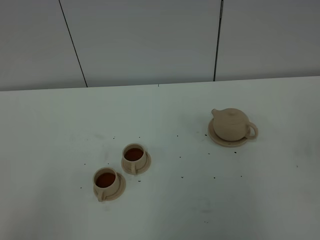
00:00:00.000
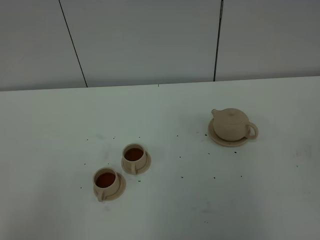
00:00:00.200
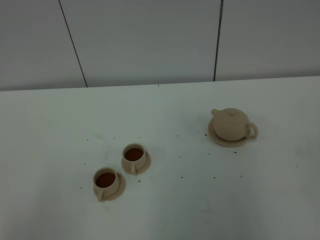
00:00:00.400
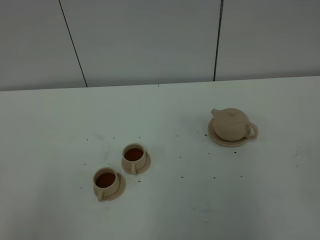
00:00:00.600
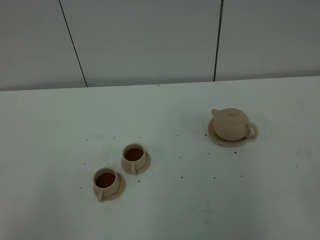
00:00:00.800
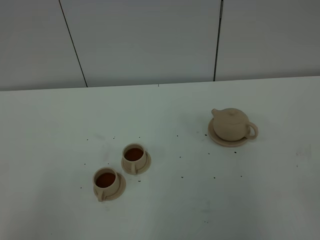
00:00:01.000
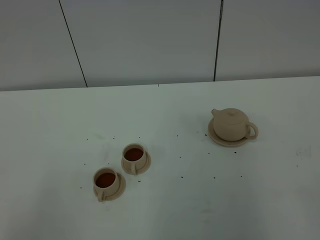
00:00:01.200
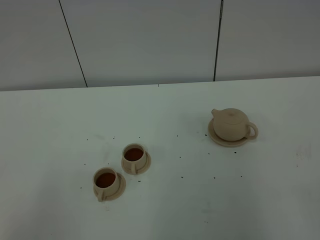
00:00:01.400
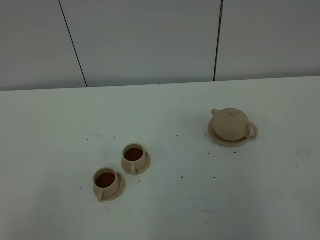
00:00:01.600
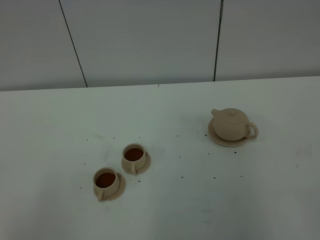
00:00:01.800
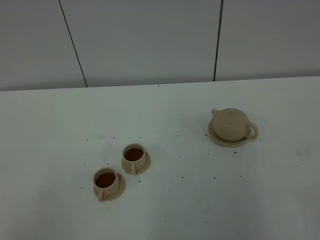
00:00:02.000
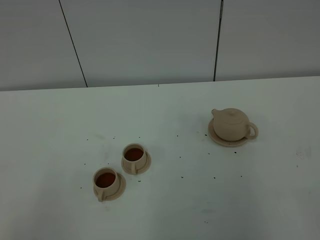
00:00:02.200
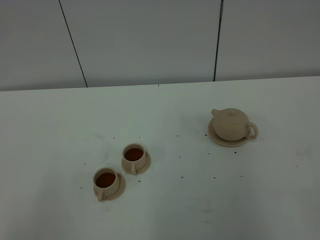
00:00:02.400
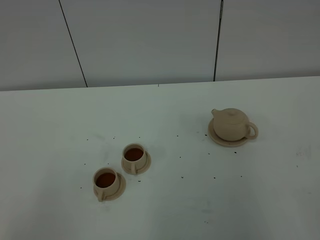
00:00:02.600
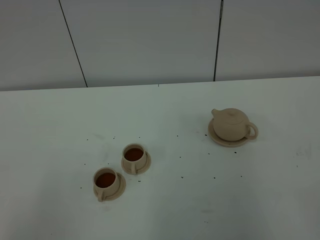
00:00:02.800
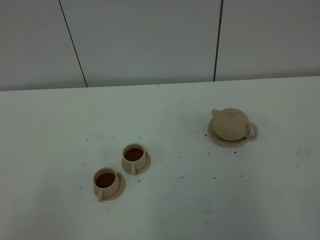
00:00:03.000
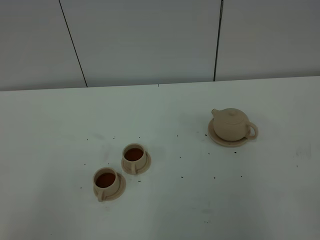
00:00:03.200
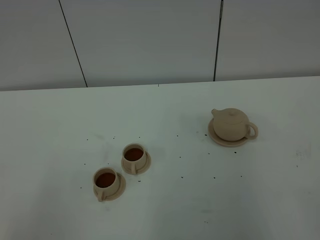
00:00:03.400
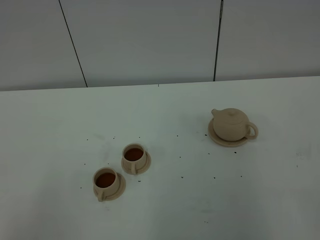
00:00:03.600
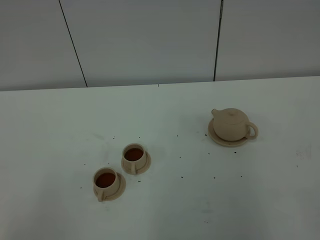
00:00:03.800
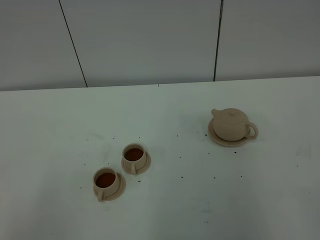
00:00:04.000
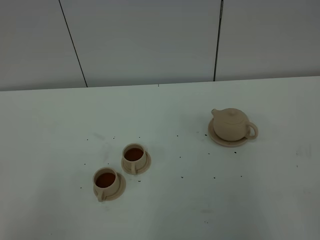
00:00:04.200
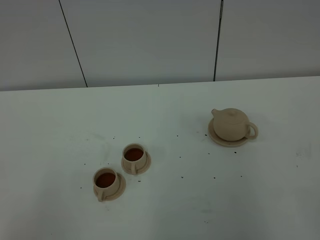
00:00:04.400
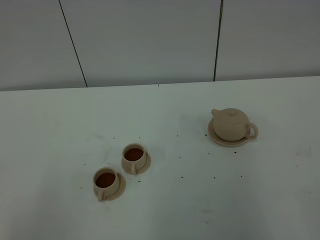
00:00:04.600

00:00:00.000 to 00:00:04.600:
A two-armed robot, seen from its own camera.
Task of the whole recording: grasp the brown teapot and pour the tea into the two brown teacups one by one, put the brown teapot back in its original place.
00:00:01.600 to 00:00:04.600: Neither gripper changes place.

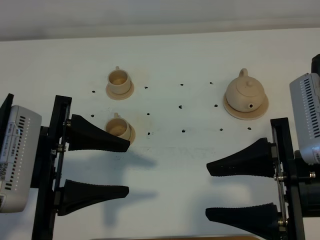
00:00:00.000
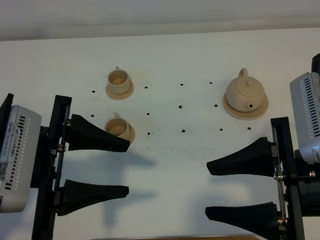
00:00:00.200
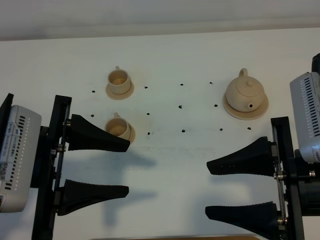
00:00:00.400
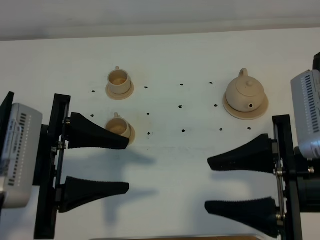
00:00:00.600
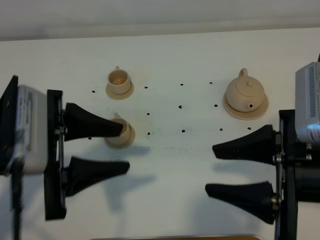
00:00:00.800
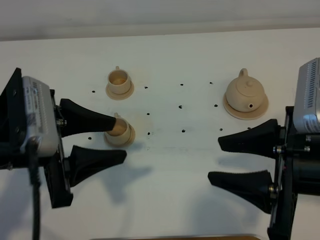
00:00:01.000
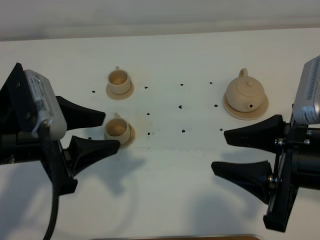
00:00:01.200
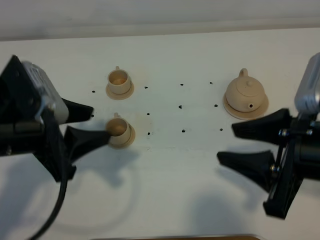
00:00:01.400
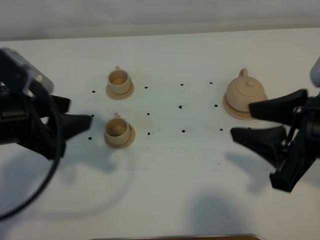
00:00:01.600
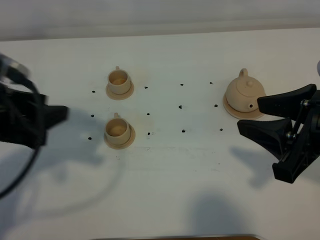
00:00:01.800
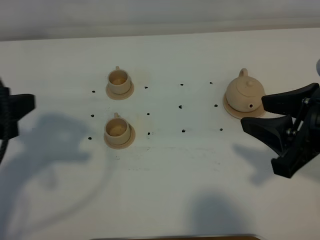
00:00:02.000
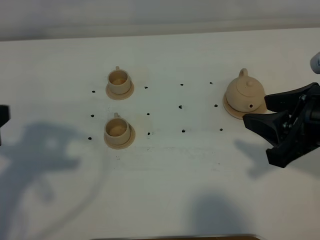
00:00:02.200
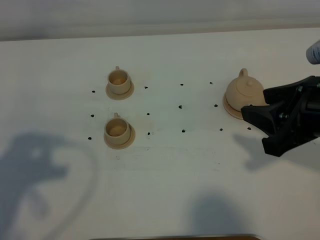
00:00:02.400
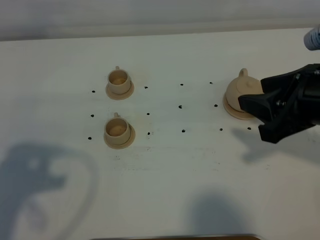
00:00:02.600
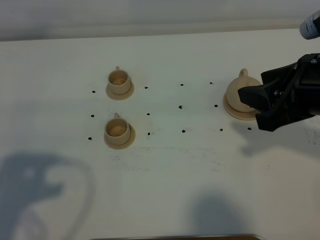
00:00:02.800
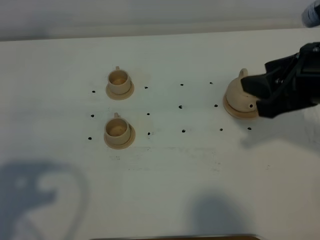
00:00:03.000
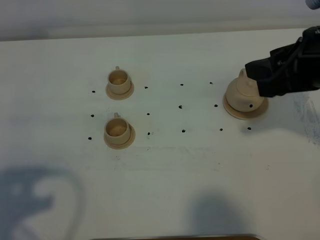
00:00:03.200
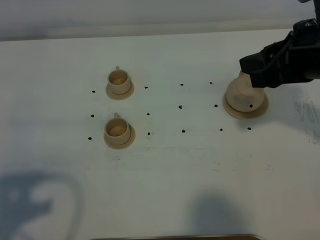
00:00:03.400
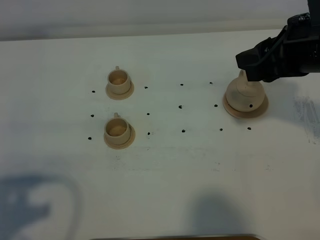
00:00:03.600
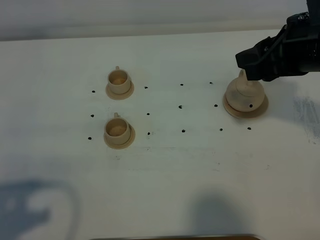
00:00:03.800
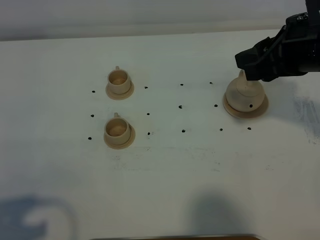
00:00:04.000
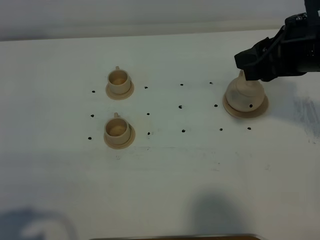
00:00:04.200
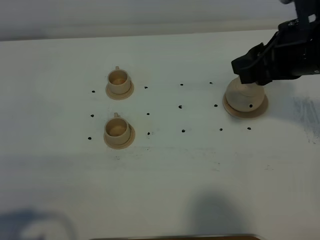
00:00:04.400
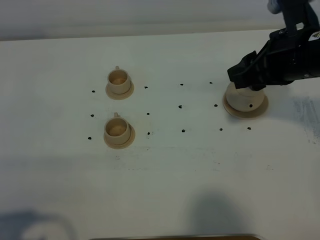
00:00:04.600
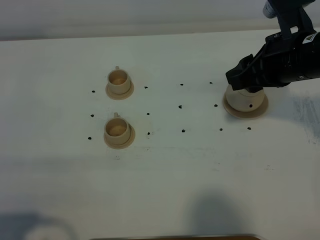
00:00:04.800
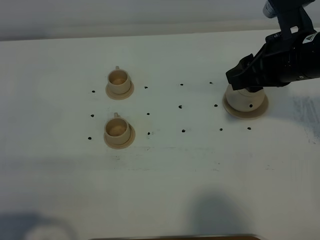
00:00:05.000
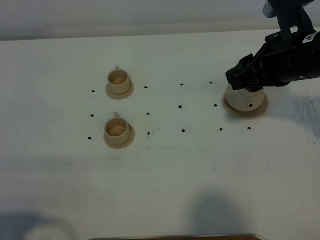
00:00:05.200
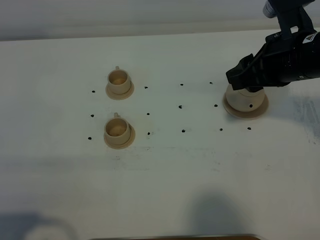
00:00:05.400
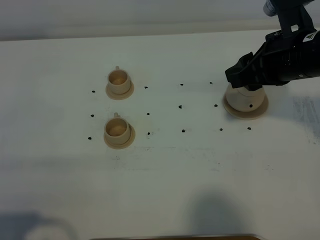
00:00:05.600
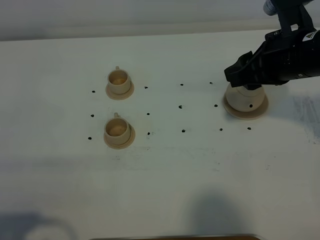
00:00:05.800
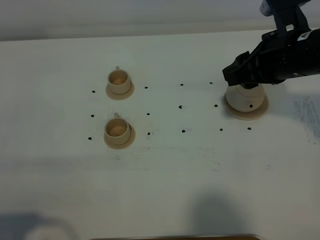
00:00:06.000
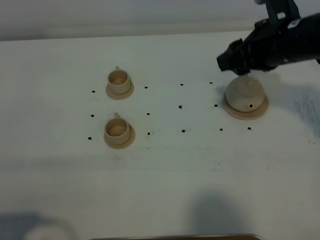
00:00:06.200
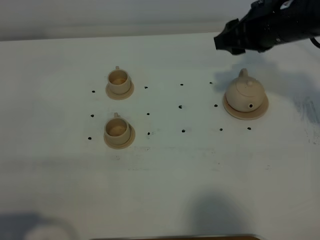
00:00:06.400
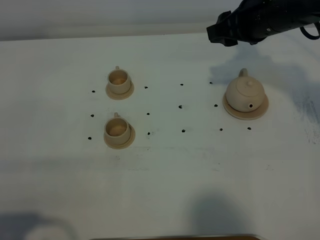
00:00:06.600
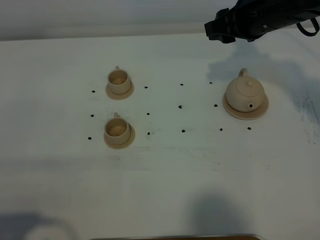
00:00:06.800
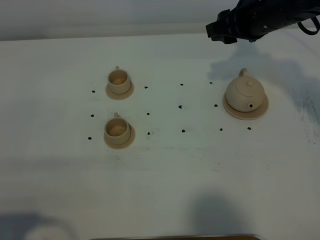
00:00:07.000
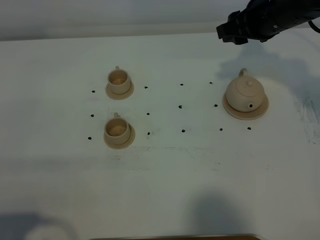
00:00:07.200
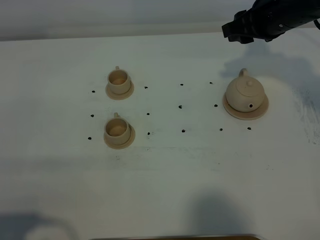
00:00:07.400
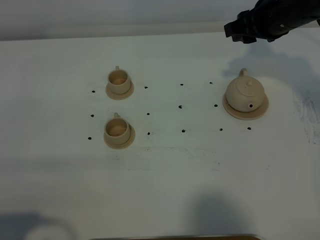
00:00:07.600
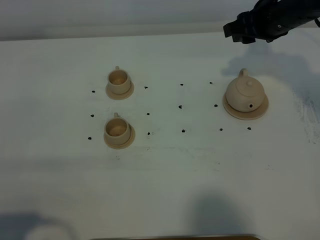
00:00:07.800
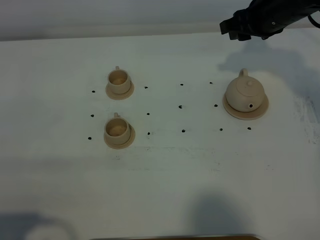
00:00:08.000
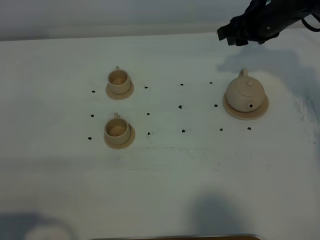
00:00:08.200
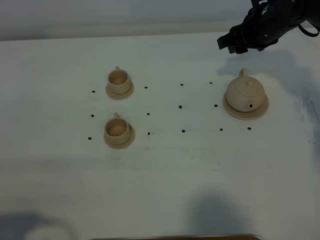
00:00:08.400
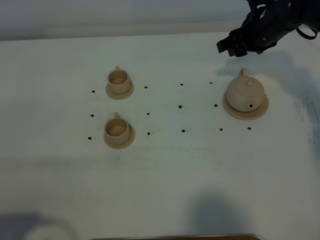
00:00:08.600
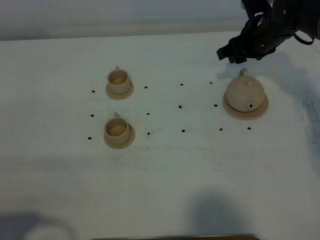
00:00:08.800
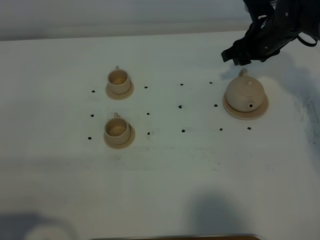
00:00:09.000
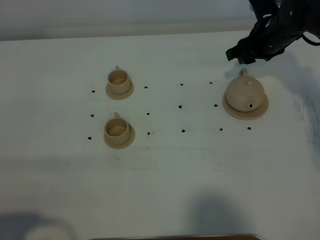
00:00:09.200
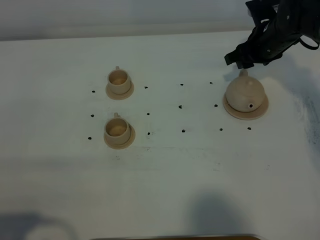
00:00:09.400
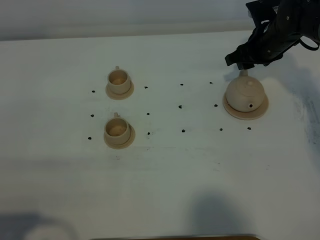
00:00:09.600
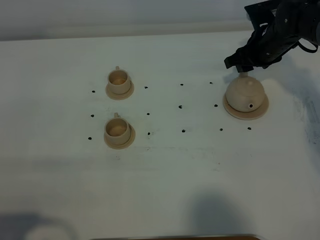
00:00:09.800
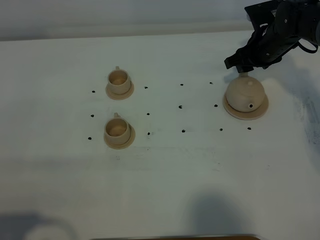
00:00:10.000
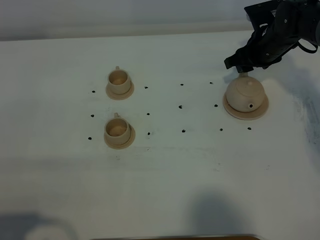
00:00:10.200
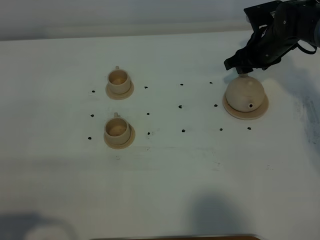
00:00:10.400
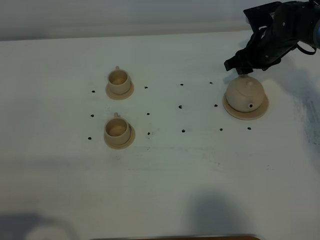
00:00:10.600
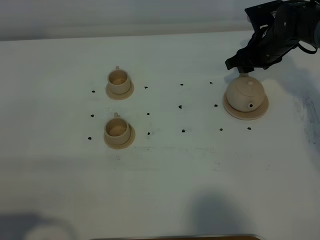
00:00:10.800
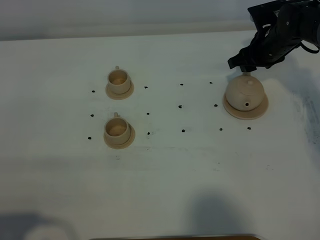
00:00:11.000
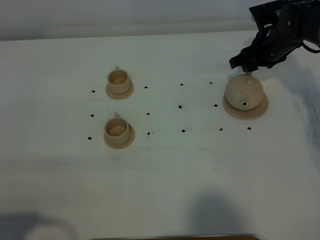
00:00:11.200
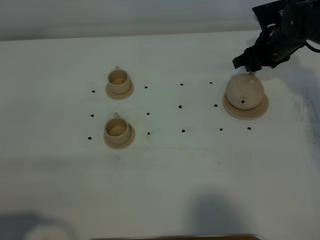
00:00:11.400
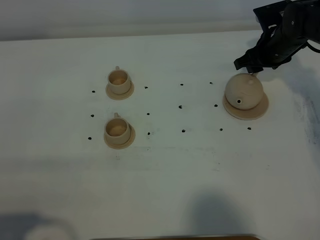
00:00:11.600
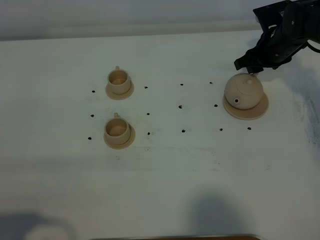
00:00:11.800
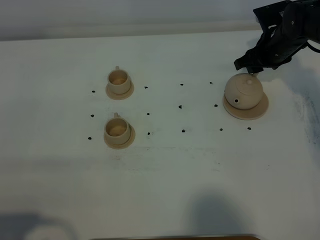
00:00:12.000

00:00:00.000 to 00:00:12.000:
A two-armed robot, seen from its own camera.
Task of the whole recording: grasp the brown teapot and pour the tea into the two brown teacups one by one, put the brown teapot back in its original place.
00:00:00.000 to 00:00:01.600: The right gripper moves approximately 5 cm, while the left gripper is displaced to the left by approximately 5 cm.
00:00:01.600 to 00:00:03.000: The left gripper heads backward and to the left, covering about 15 cm; the right gripper shifts roughly 5 cm forward.
00:00:03.000 to 00:00:04.400: The right gripper is displaced forward by about 5 cm. The left gripper travels backward and downward by some 10 cm, and closes its fingers.
00:00:04.400 to 00:00:06.000: The grippers stay close to where they were, moving slightly.
00:00:06.000 to 00:00:07.600: The right gripper travels forward by some 10 cm.
00:00:07.600 to 00:00:09.000: The right gripper moves downward and forward, some 10 cm.
00:00:09.000 to 00:00:12.000: The grippers stay close to where they were, moving slightly.

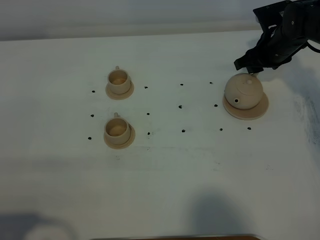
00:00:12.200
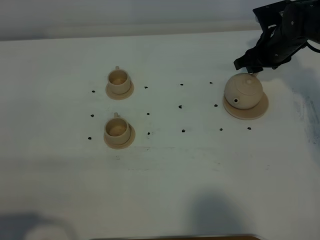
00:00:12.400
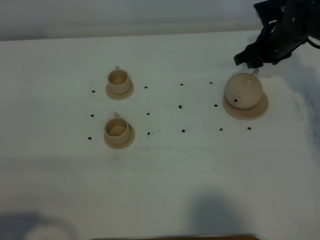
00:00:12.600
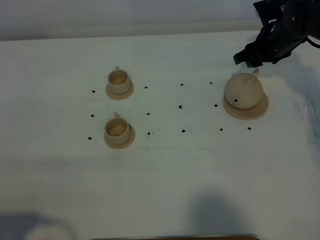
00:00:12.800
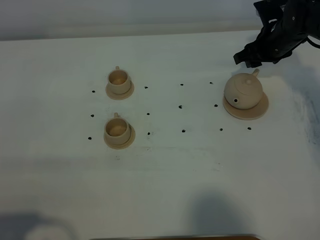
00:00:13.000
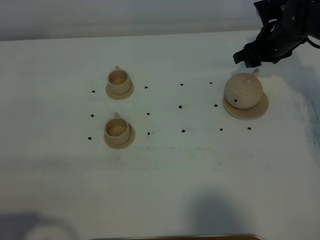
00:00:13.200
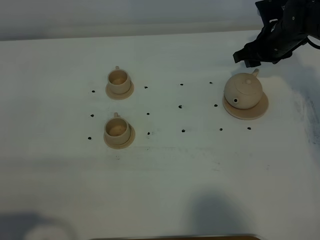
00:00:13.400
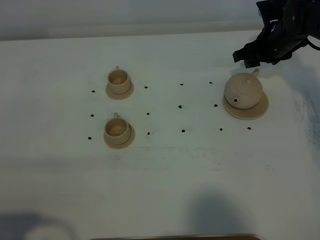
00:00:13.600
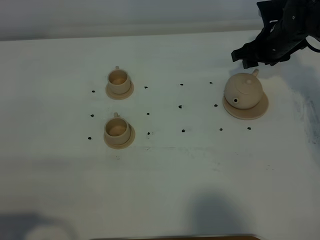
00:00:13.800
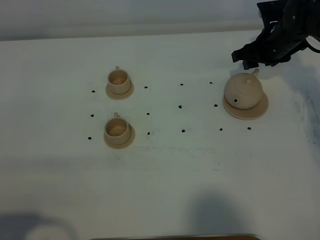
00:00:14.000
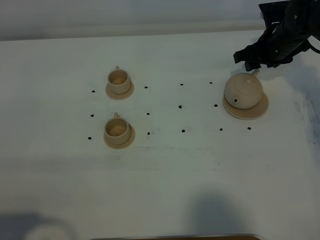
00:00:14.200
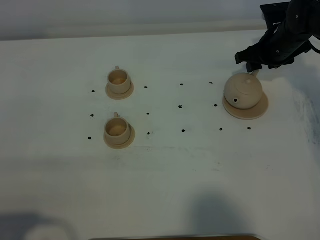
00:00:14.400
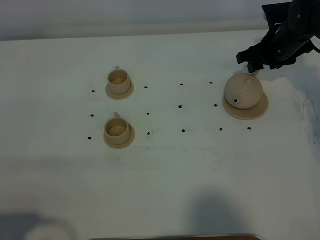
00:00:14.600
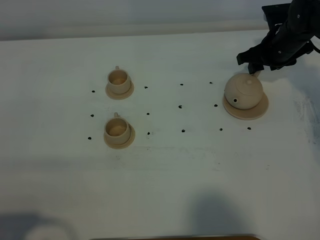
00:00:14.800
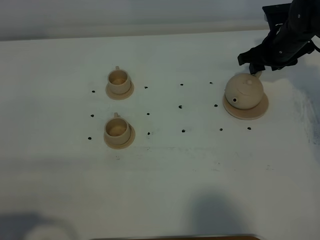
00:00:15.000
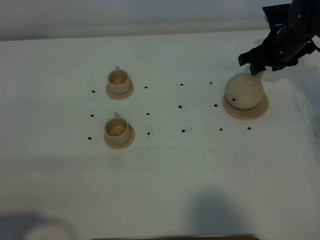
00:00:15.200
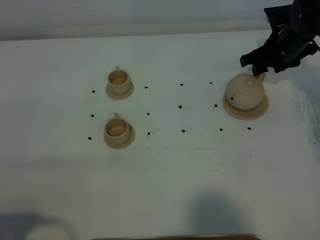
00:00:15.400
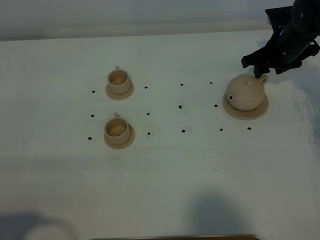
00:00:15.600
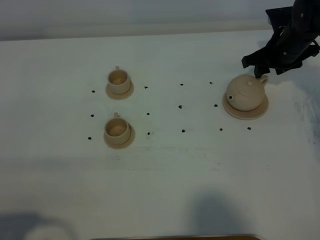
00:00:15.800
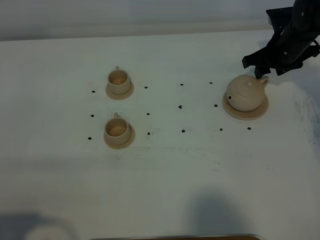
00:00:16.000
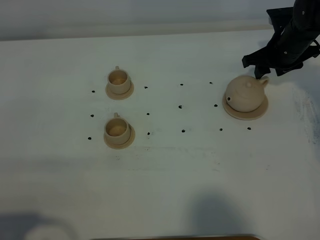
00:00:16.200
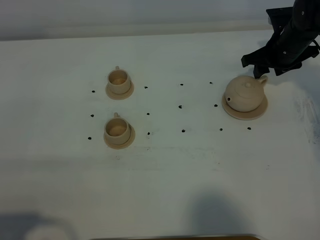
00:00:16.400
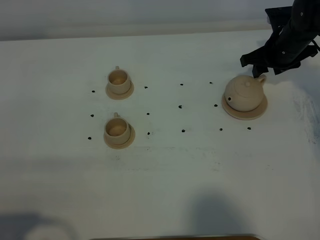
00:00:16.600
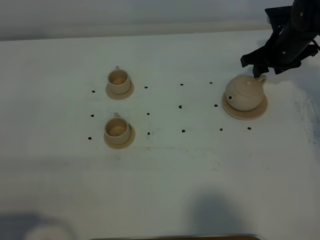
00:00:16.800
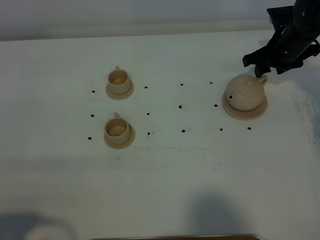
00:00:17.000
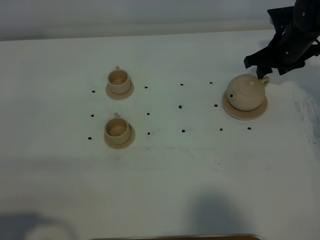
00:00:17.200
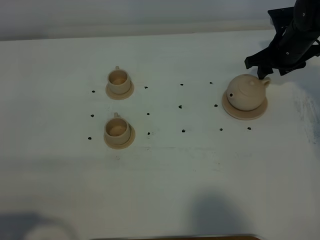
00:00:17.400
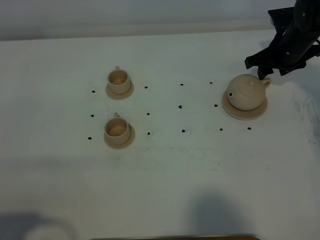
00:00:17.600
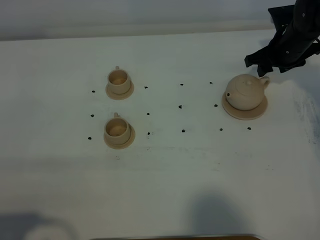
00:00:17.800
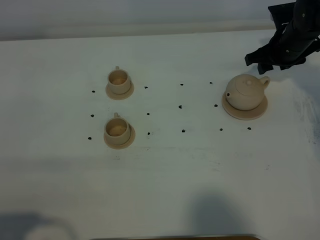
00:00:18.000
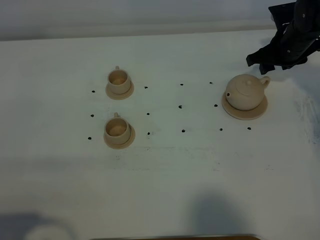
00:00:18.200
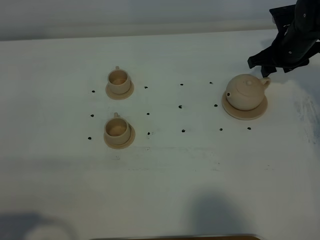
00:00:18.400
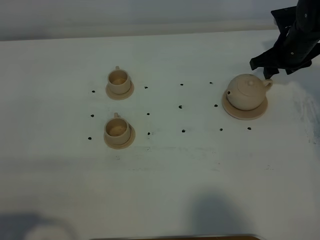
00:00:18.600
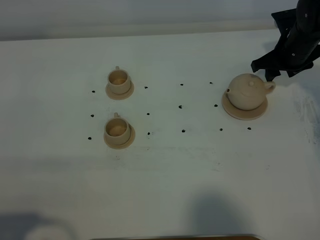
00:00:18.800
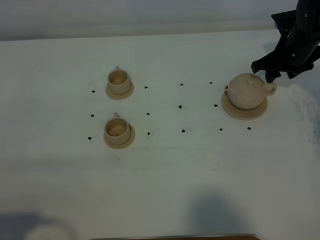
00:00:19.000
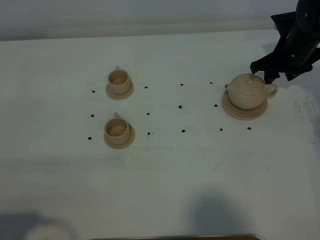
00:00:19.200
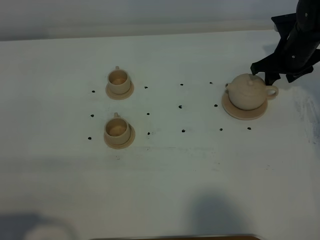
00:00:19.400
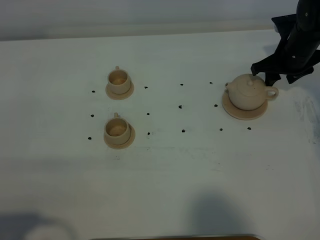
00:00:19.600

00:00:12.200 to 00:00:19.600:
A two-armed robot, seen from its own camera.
Task of the whole recording: grasp the brown teapot and pour the tea into the two brown teacups one by one, put the brown teapot back in its original place.
00:00:12.200 to 00:00:15.200: The grippers move only a little.
00:00:15.200 to 00:00:16.600: The two grippers keep their place.
00:00:16.600 to 00:00:19.600: The grippers move only a little.
